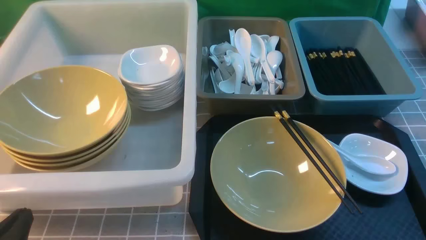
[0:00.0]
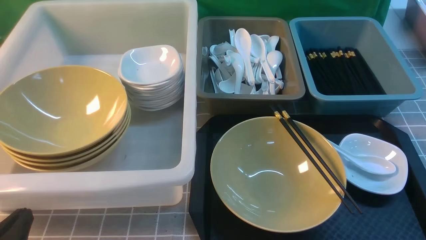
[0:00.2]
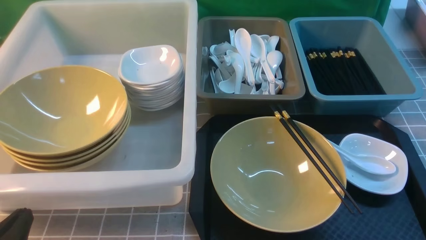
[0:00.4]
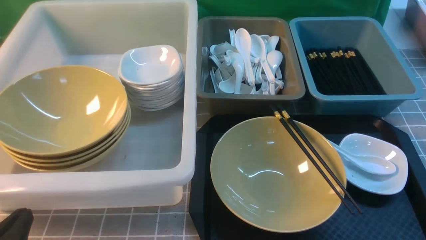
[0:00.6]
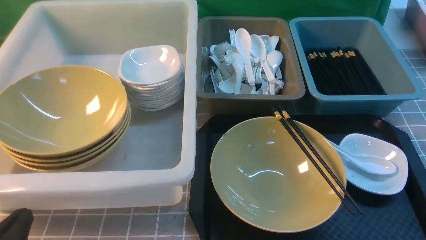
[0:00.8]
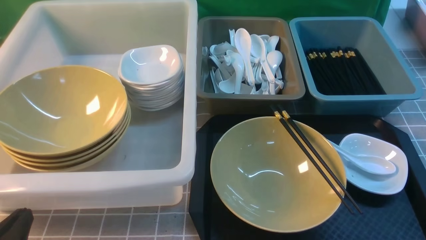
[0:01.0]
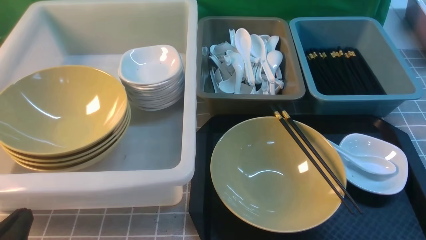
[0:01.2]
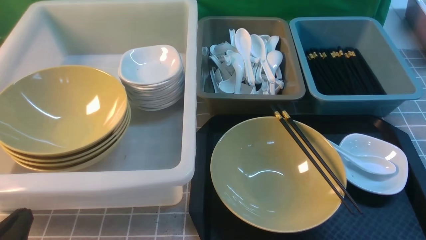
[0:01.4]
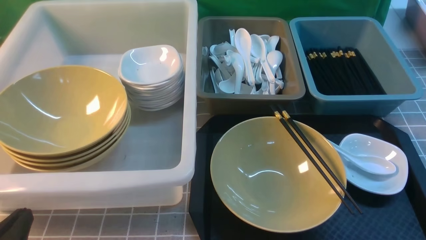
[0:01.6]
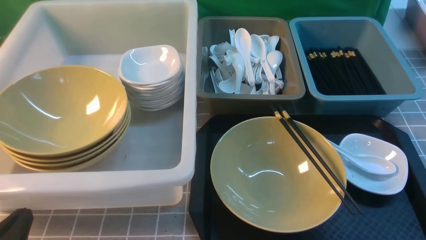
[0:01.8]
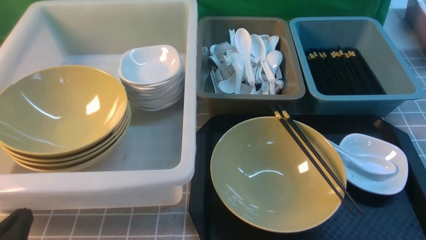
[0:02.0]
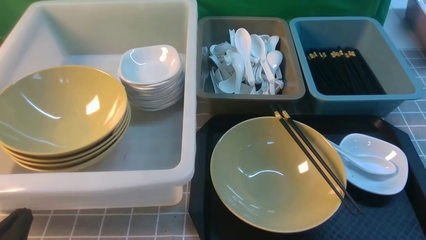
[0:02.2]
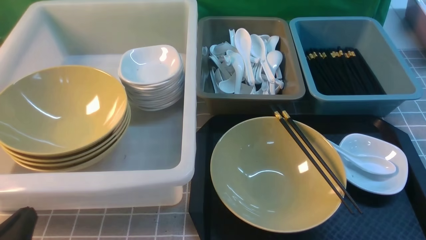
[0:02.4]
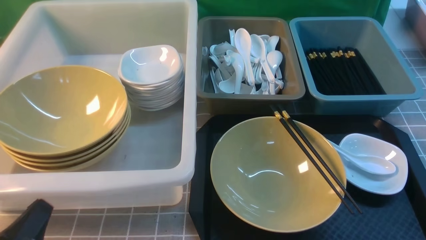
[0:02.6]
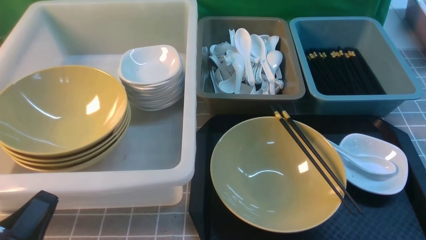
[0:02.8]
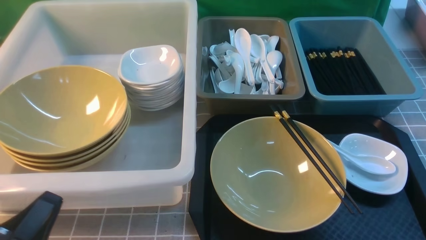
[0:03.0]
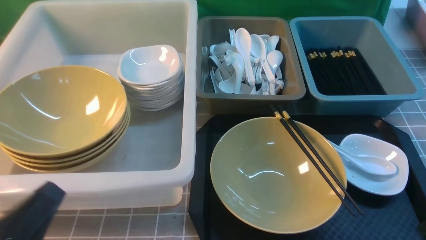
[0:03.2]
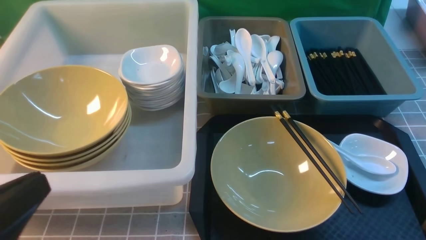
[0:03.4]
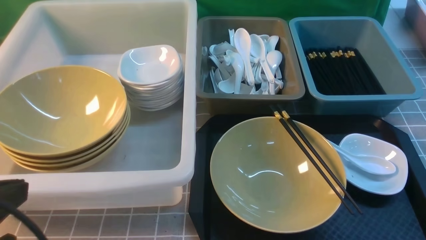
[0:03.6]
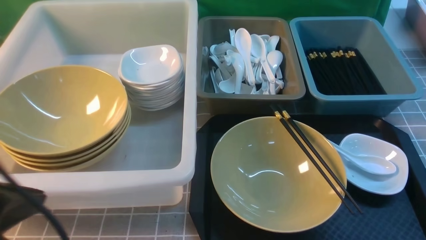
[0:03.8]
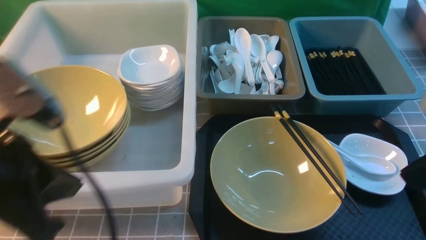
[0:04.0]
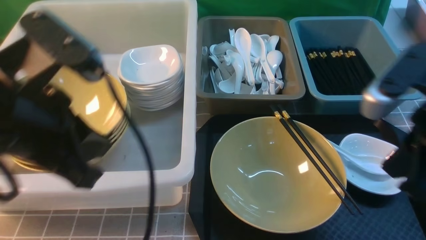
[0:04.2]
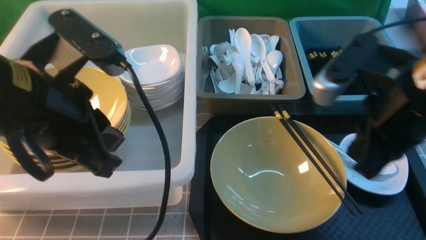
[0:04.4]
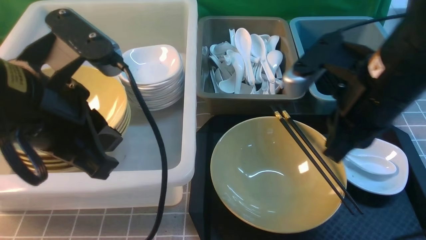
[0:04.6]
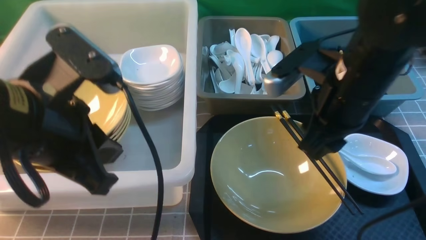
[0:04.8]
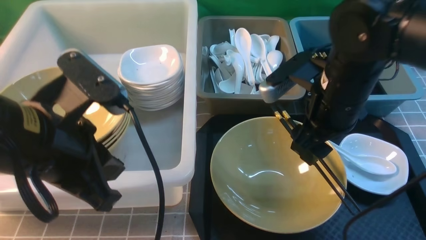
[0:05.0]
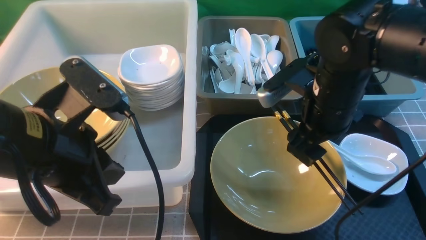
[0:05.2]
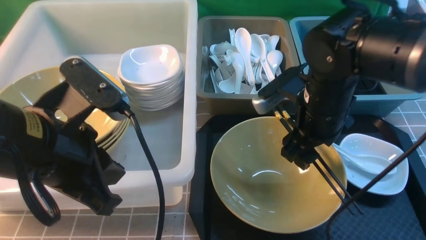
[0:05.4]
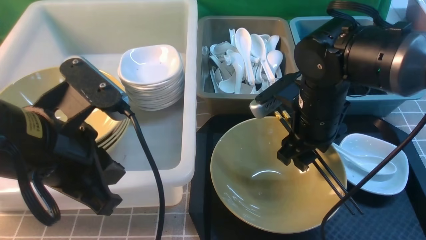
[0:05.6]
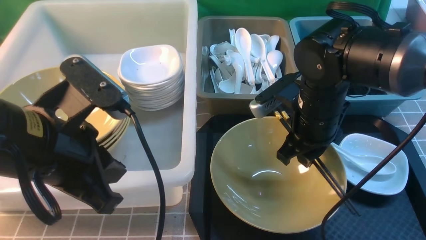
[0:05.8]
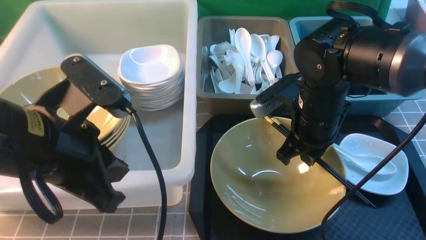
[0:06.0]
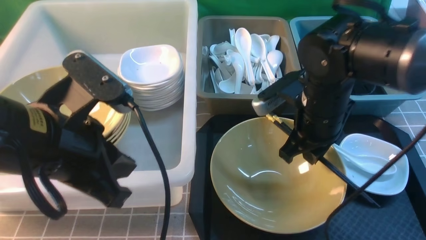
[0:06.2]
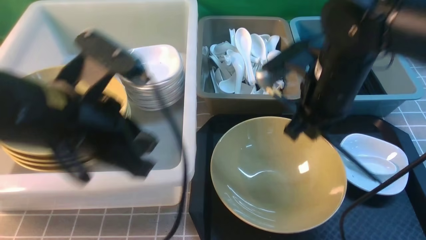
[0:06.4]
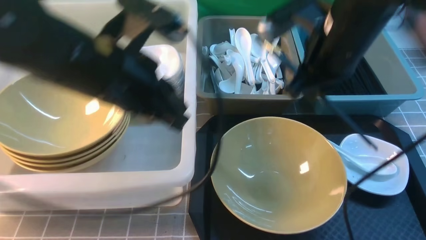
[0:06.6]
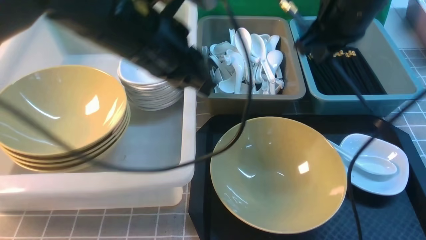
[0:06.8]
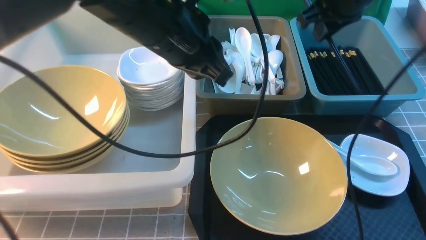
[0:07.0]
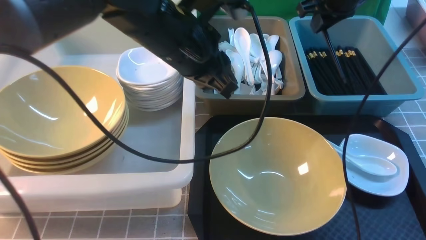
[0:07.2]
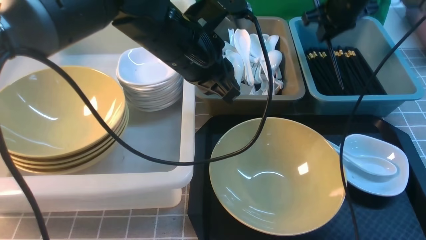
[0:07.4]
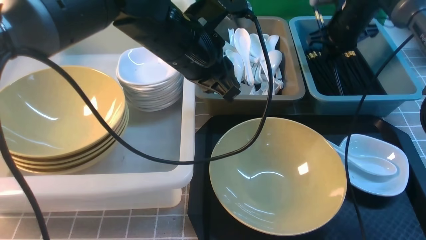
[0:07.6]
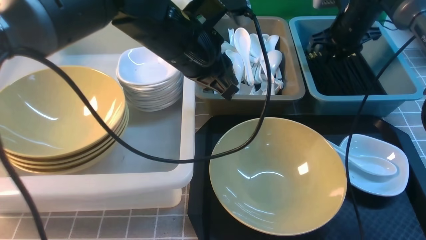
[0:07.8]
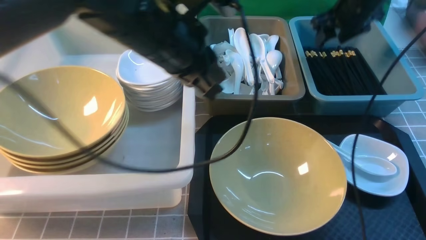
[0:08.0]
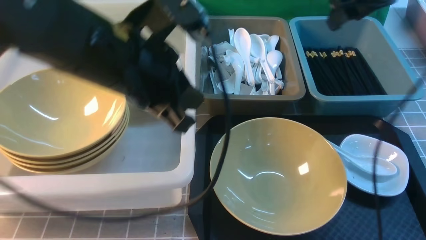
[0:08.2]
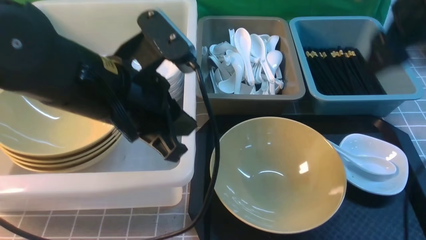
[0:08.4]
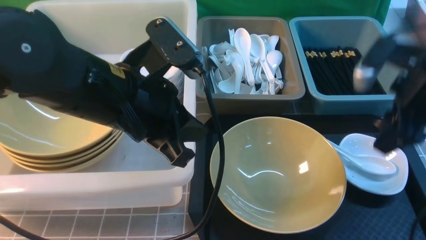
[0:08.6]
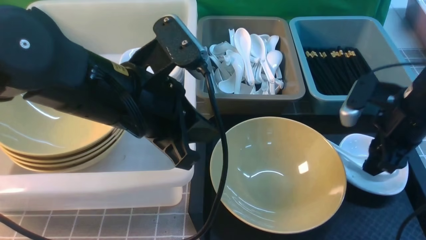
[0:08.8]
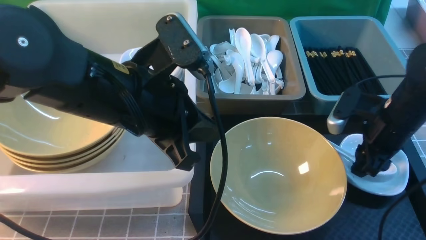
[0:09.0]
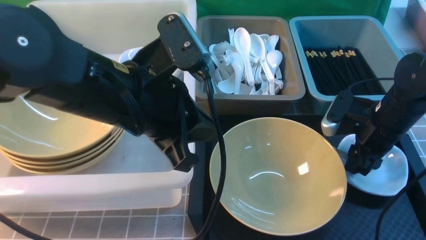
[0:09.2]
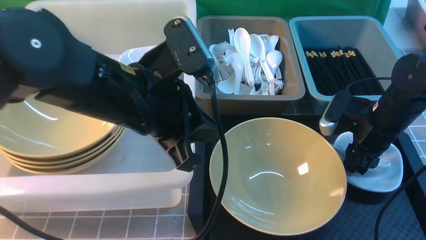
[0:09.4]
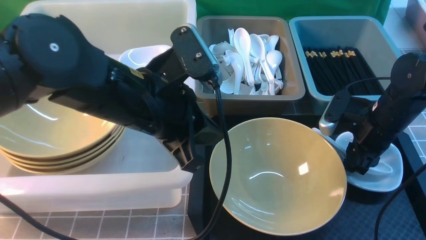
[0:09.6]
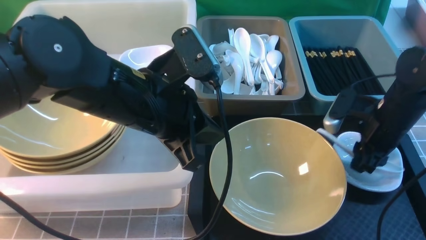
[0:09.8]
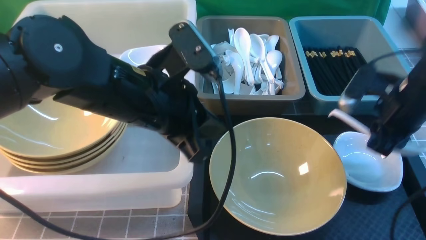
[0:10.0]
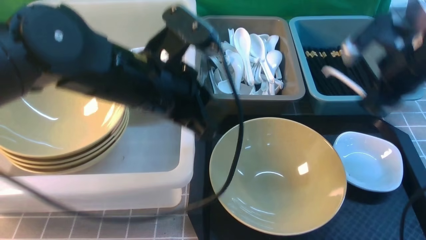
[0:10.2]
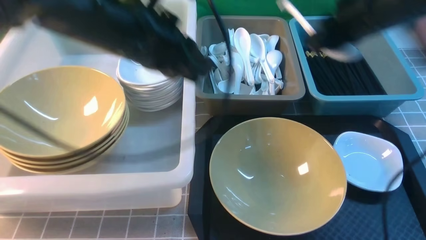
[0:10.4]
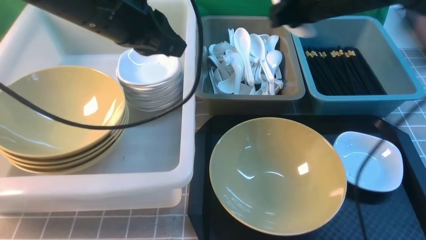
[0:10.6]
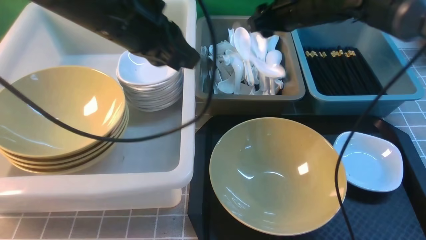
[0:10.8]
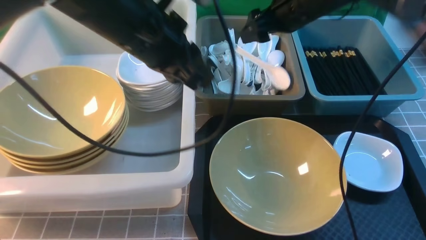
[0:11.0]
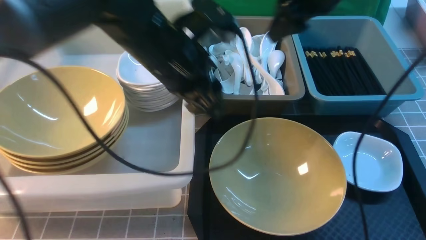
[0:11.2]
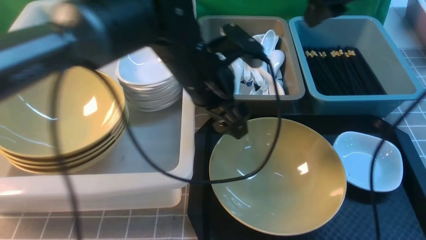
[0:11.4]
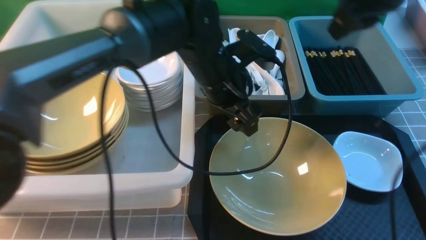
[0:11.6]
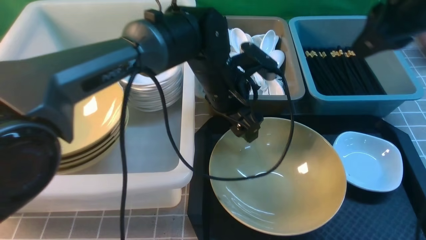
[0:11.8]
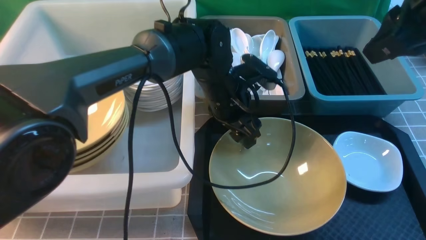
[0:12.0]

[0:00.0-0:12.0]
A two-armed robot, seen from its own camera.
Task of the whole recording: on grey table put chopsticks spoon bowls plates into blue grey white boxes.
Step, 0:00.0 to 0:06.2: use the right arm to grab the chopsticks.
Step, 0:06.4 to 0:08.2: use the right arm to put the chopsticks into the small storage box on the right.
Step, 0:08.4 to 0:09.8: use the right arm to grab the soup spoon in the middle.
Step, 0:10.0 to 0:10.6: use the right arm to put the soup spoon into the small storage box in the middle.
0:00.0 to 0:01.6: Neither gripper changes place.
0:03.0 to 0:04.4: The left gripper moves upward, forward and to the right, roughly 20 cm. The right gripper moves forward, upward and to the left, roughly 25 cm, and closes up.
0:04.4 to 0:06.0: The right gripper is displaced downward, forward and to the left by about 15 cm, and opens, then closes again.
0:06.0 to 0:07.6: The two grippers go roughly 20 cm forward and to the right.
0:07.6 to 0:09.0: The right gripper goes some 20 cm backward. The left gripper shifts some 10 cm backward.
0:09.0 to 0:10.4: The left gripper shifts roughly 5 cm forward. The right gripper is displaced upward, to the left and forward by roughly 15 cm, and closes up.
0:10.4 to 0:12.0: The right gripper goes about 15 cm backward and upward, and opens, then closes once more. Meanwhile the left gripper shifts some 20 cm downward, to the right and forward, and opens.

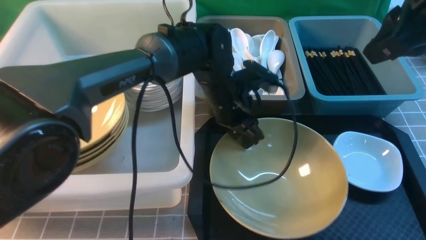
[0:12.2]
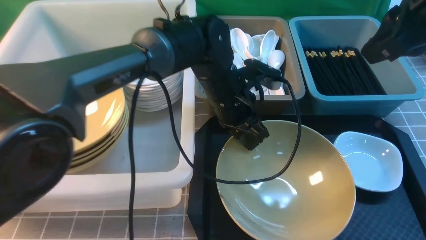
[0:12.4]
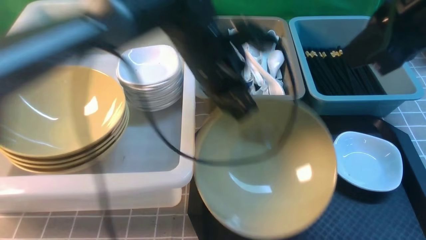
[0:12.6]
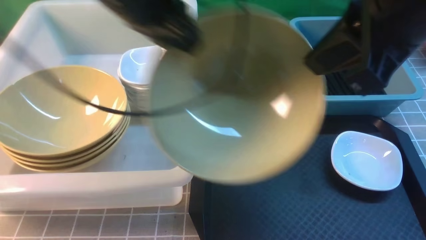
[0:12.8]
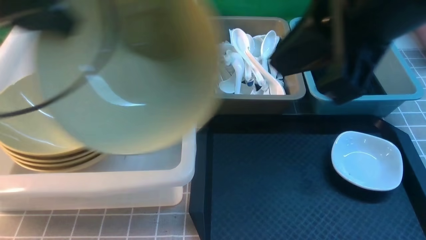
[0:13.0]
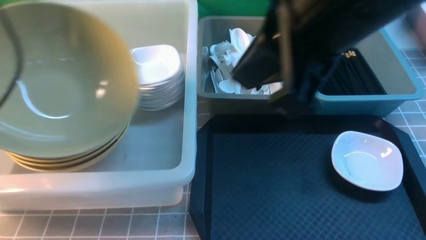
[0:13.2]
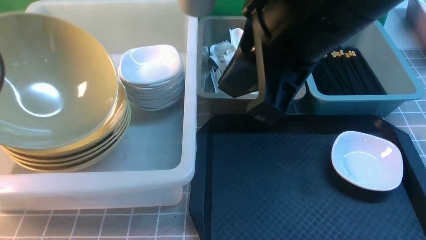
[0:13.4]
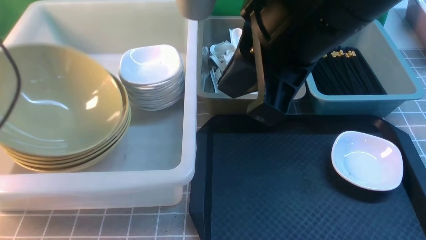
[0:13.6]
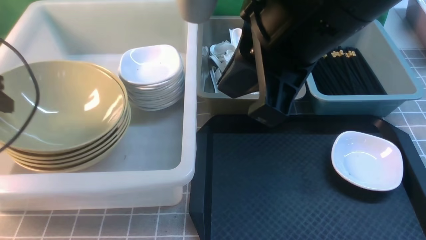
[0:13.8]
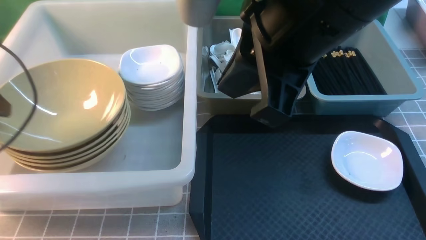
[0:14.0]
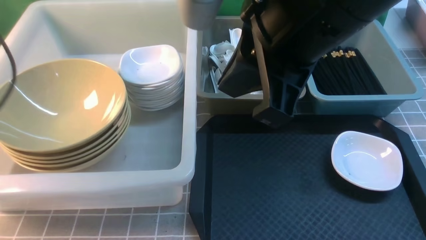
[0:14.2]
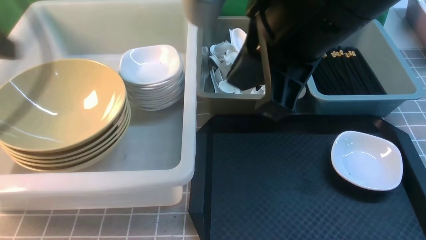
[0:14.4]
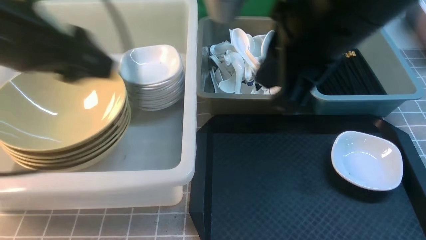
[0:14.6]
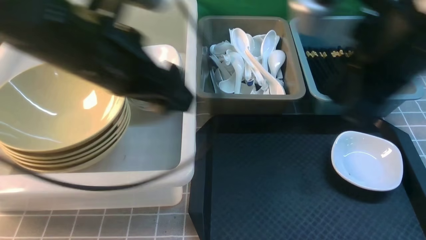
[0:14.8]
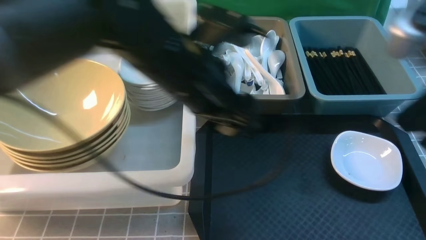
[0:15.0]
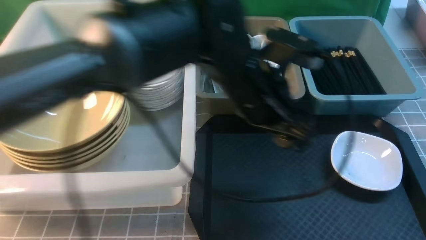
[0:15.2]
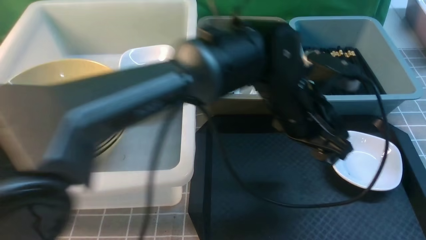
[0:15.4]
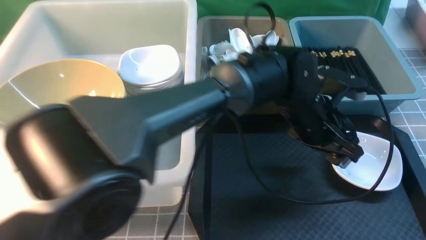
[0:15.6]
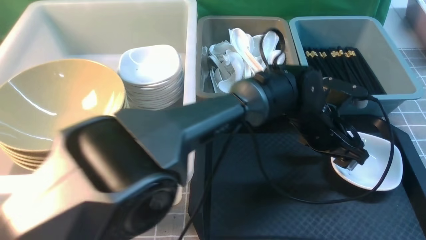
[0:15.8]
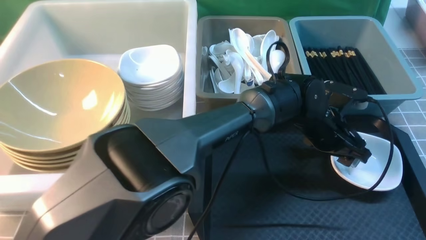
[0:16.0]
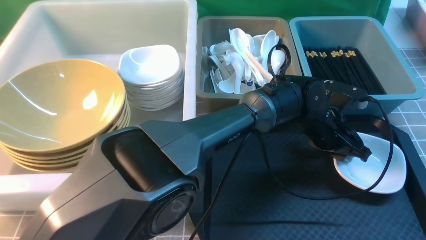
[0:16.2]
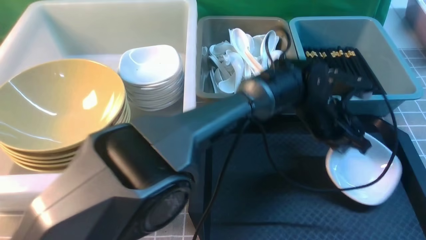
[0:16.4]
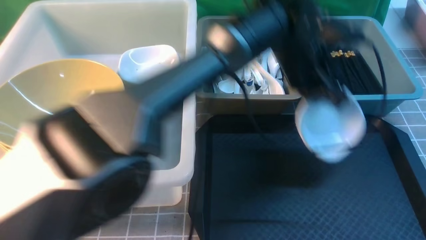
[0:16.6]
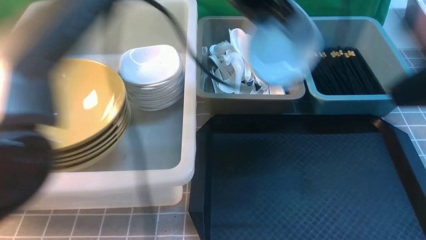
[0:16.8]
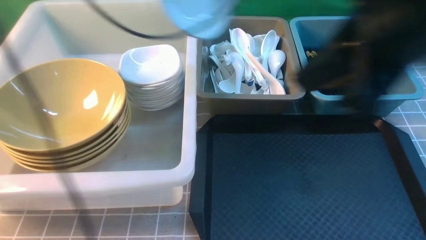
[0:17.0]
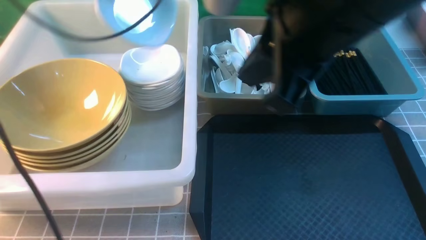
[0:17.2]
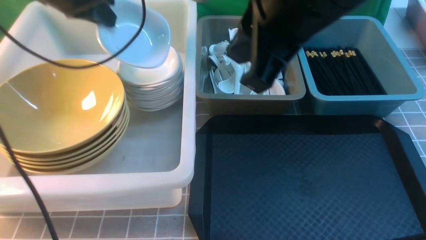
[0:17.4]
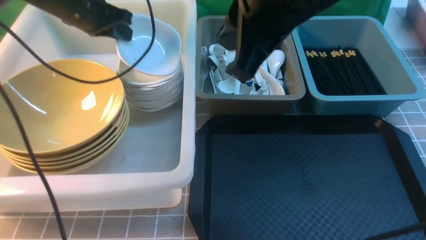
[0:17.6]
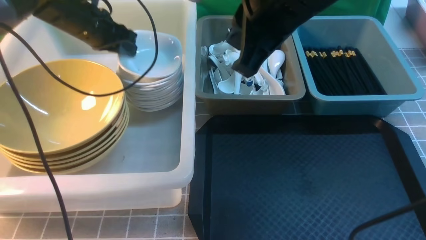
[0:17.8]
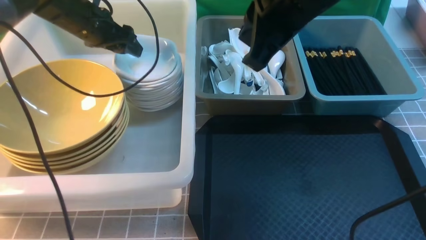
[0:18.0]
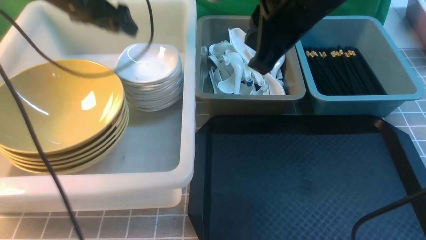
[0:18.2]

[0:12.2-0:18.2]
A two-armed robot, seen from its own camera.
Task of the whole recording: on grey table put chopsticks spoon bowls plates into blue grey white boxes.
Step, 0:12.8 to 0:14.2: use the left arm to put the noodle bowl into the large storage box on the left.
Step, 0:14.4 to 0:16.6: use the left arm to grab the plate.
Step, 0:16.8 to 0:18.2: use the left arm to put the plate into the large storage box on the left.
0:12.2 to 0:13.8: The right gripper goes some 15 cm to the left and backward, while the left gripper shifts some 40 cm to the left, and opens its fingers.
0:13.8 to 0:15.2: The right gripper heads to the right, covering roughly 20 cm. The left gripper shifts approximately 50 cm to the right.
0:15.2 to 0:16.6: The left gripper travels upward, to the left and forward by about 20 cm, and closes its fingers, while the right gripper heads to the left, covering approximately 5 cm.
0:16.6 to 0:18.2: The left gripper travels to the left by roughly 20 cm, and opens up; the right gripper moves to the left and forward, some 10 cm.
